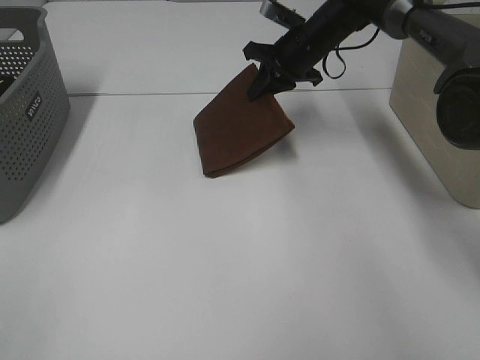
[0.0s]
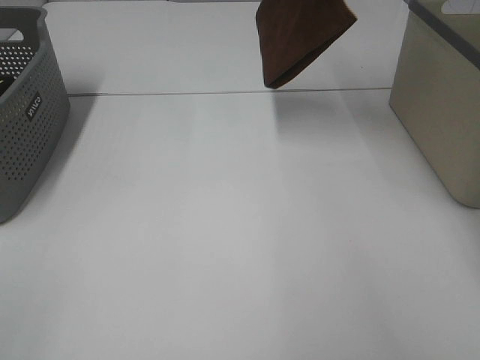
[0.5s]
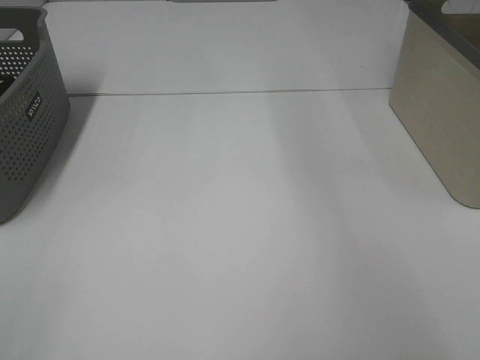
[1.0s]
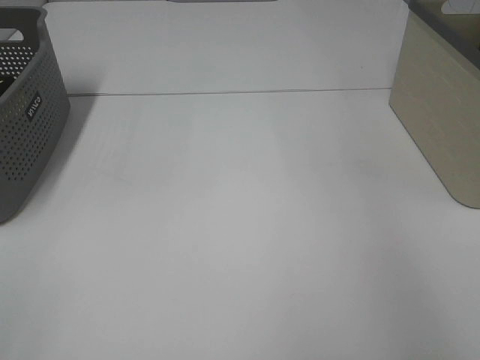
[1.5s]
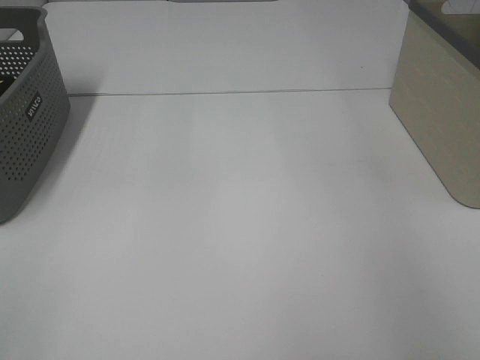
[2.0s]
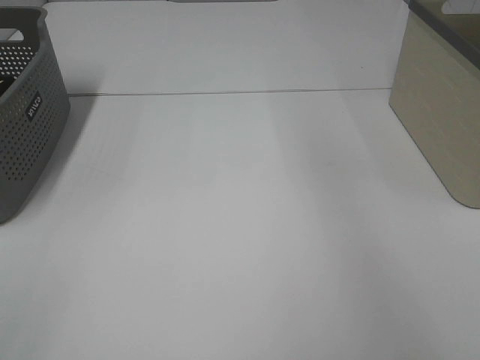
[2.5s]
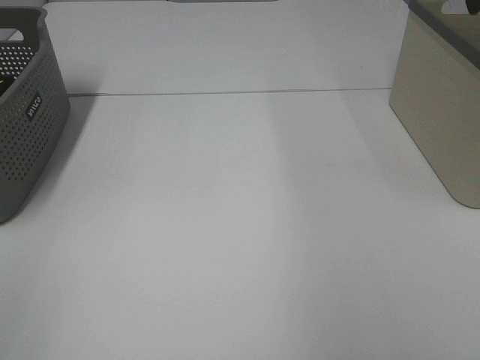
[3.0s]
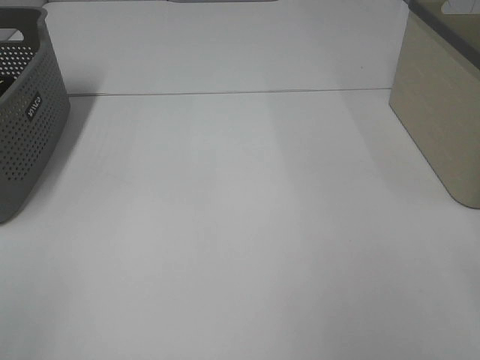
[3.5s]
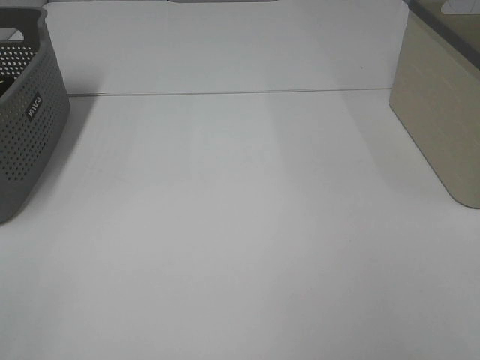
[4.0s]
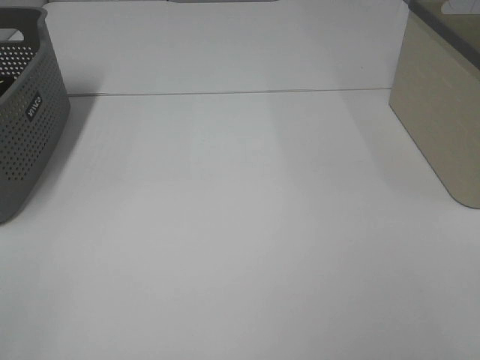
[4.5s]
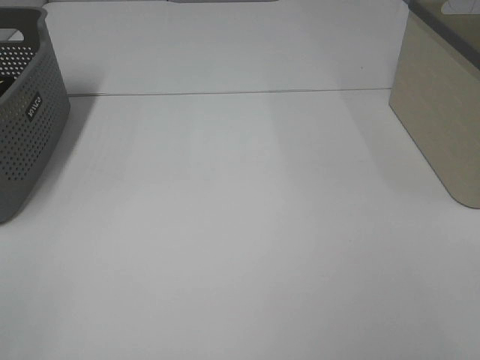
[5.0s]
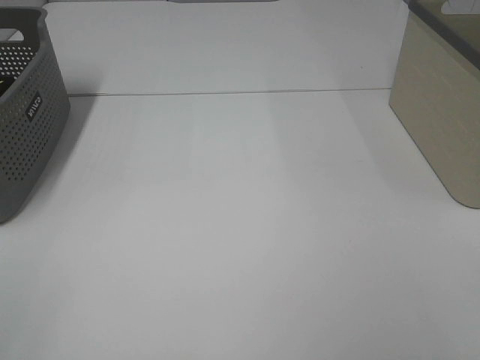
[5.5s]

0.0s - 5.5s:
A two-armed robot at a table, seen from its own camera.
Step, 0.0s - 2.0s: Right hand: place the brown towel in right basket.
0.0s - 2.0s: The right gripper shifts approximately 30 cm to the right and upward, and opens its fingers.

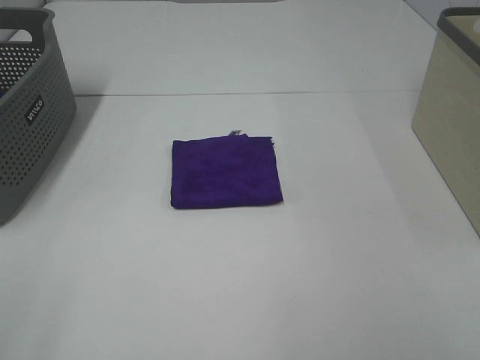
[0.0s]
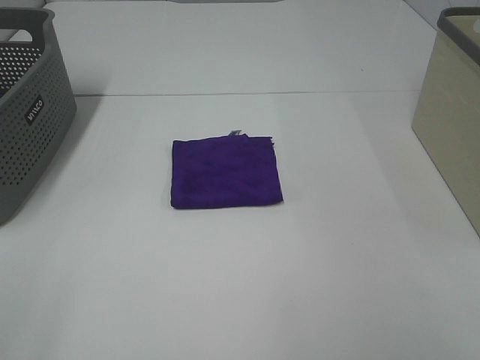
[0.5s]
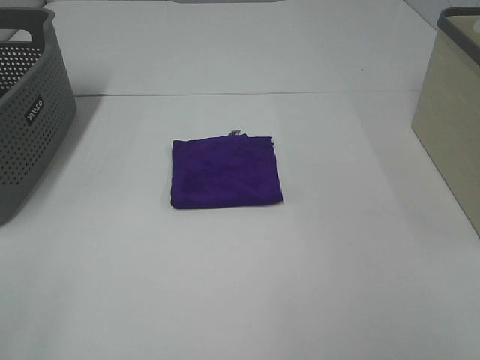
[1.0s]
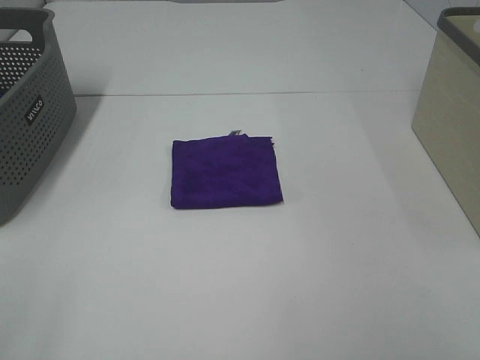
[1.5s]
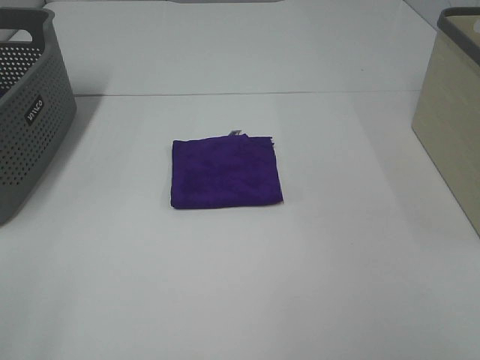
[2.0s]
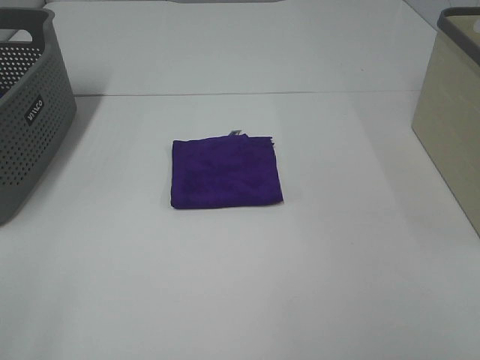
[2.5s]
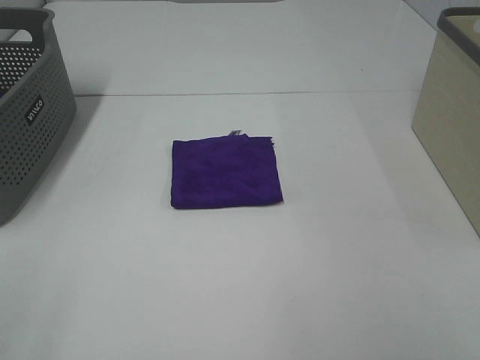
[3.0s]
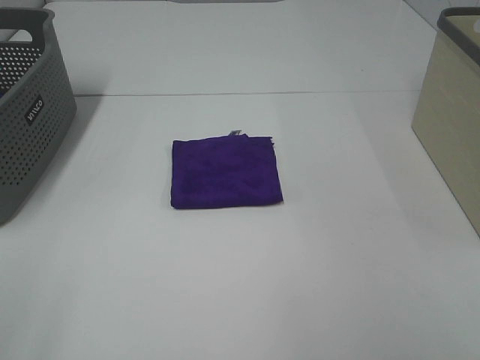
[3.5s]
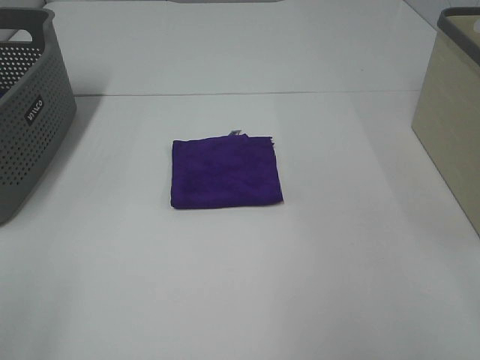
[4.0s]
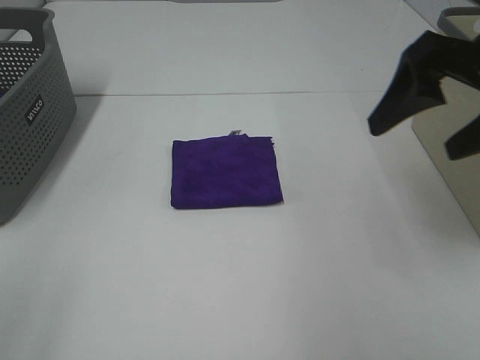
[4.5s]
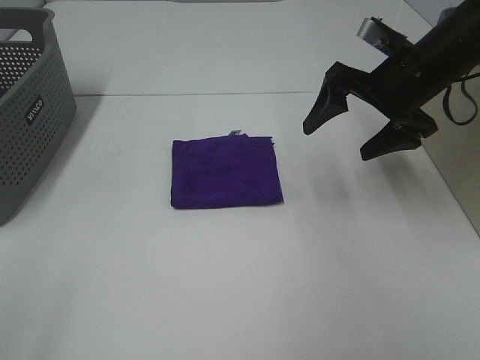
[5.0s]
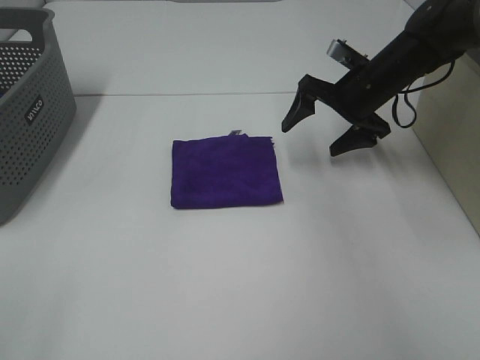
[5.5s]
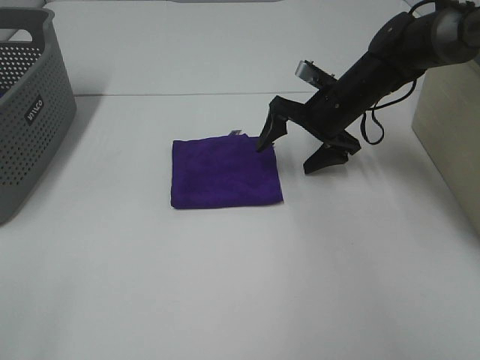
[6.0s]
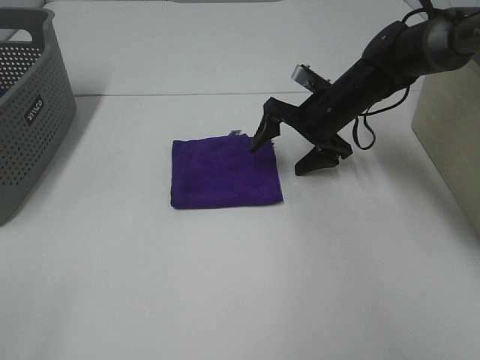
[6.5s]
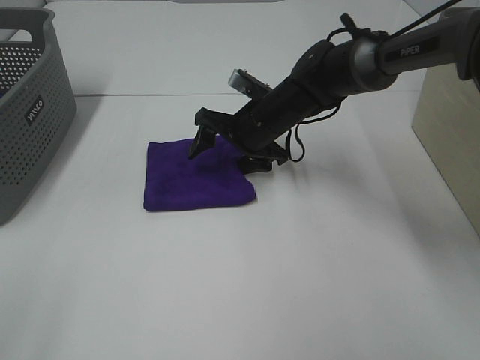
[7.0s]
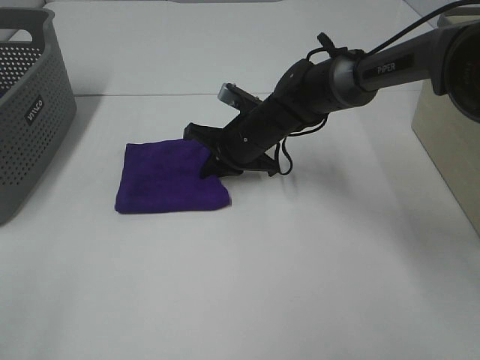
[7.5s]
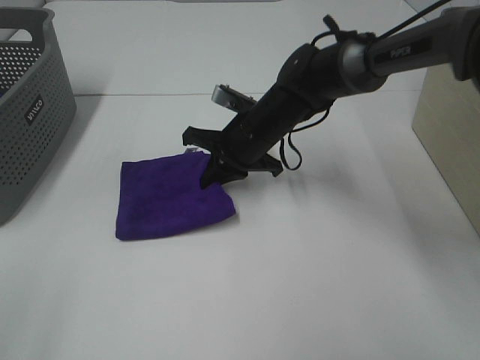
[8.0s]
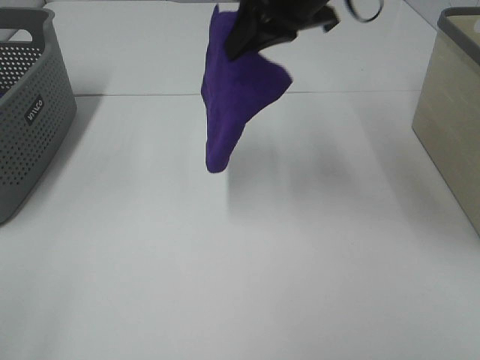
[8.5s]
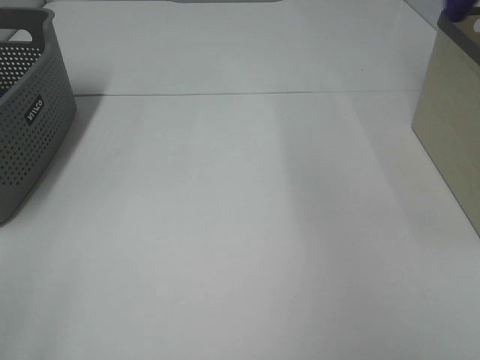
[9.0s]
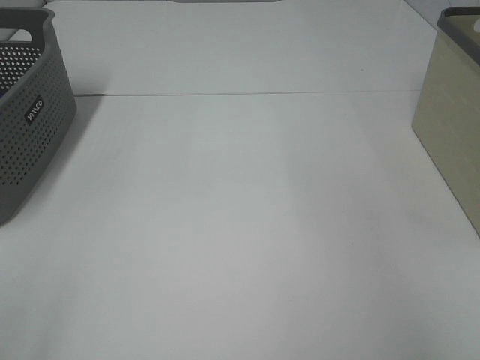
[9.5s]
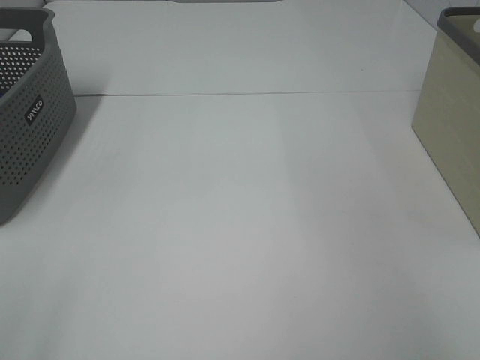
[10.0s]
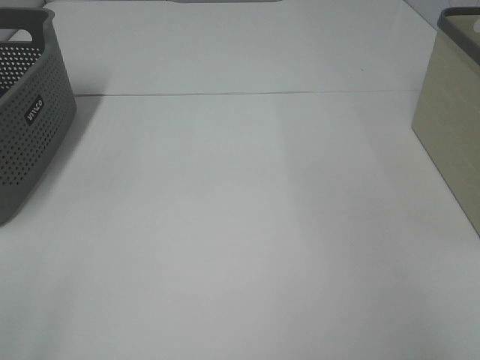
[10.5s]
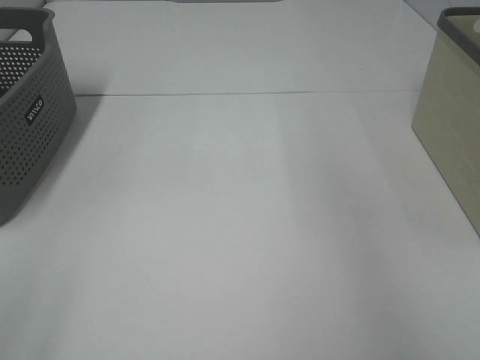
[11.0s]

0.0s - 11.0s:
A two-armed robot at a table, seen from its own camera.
Step, 0.0s - 7.5s: Right hand: grab the folded purple towel.
Step, 8.0s - 10.0s: Right hand: place the purple towel in right basket.
0.0s - 3.5s: The two grippers keep their place.
3.5s - 5.5s: The right gripper moves forward, about 40 cm.
5.5s - 7.5s: The right gripper moves to the left and downward, about 15 cm, and closes its fingers.
7.5s - 9.0s: The right gripper goes approximately 50 cm upward and to the right.

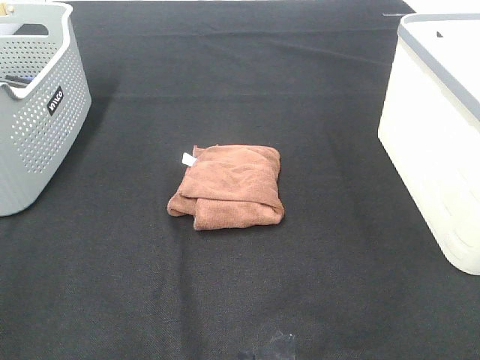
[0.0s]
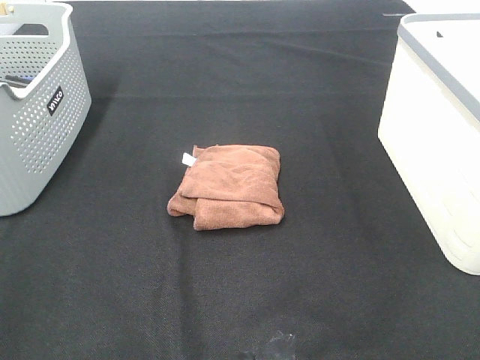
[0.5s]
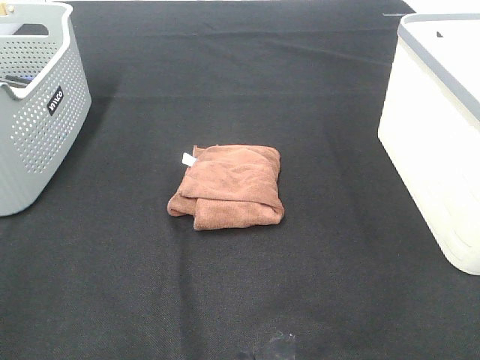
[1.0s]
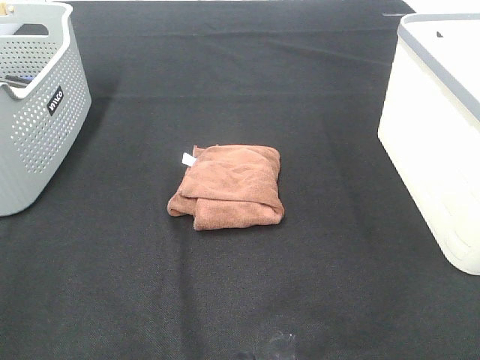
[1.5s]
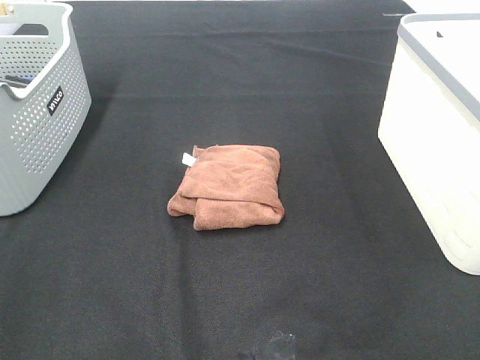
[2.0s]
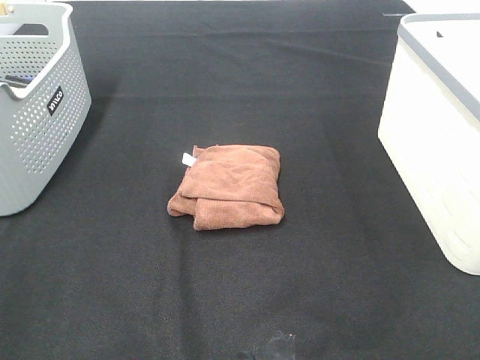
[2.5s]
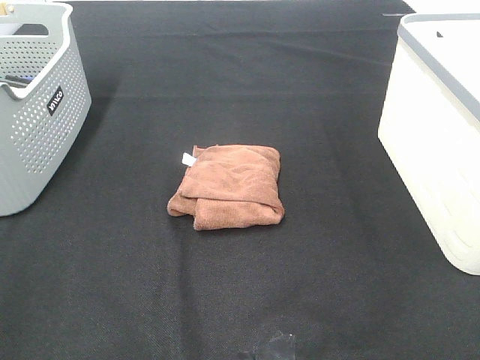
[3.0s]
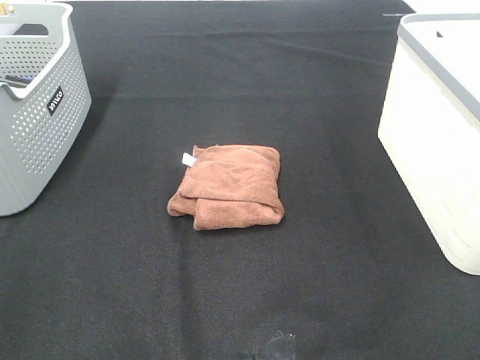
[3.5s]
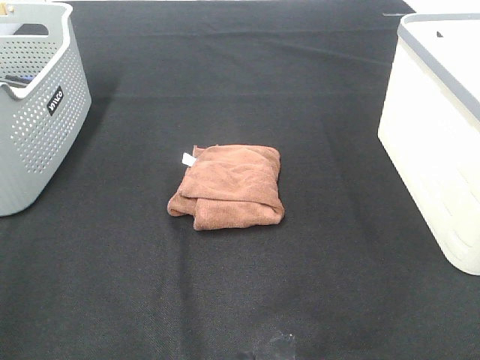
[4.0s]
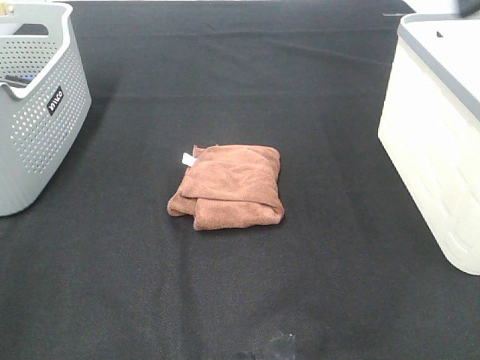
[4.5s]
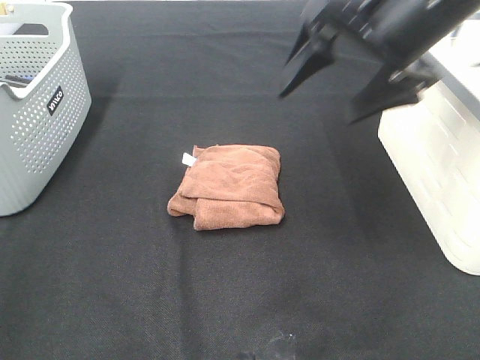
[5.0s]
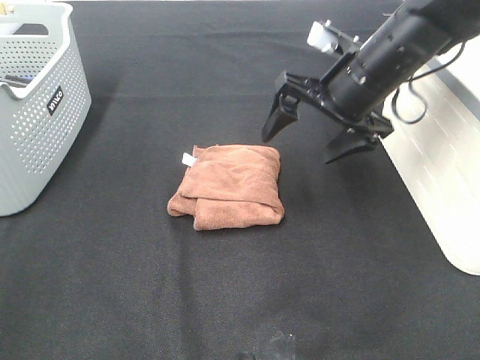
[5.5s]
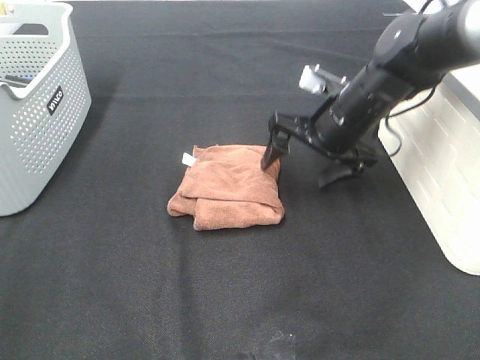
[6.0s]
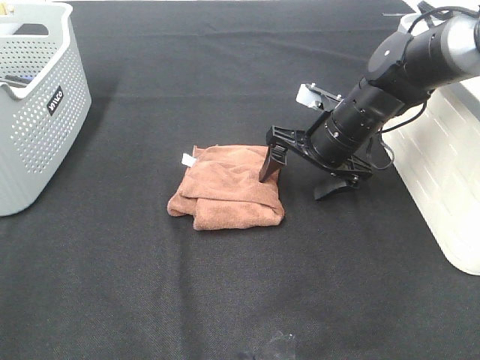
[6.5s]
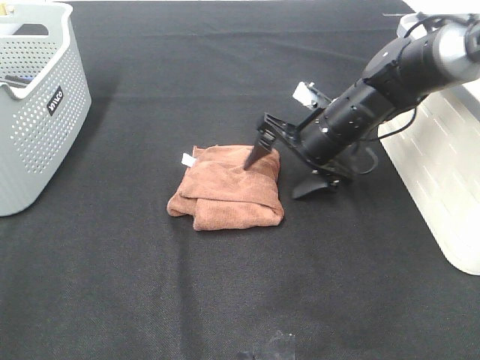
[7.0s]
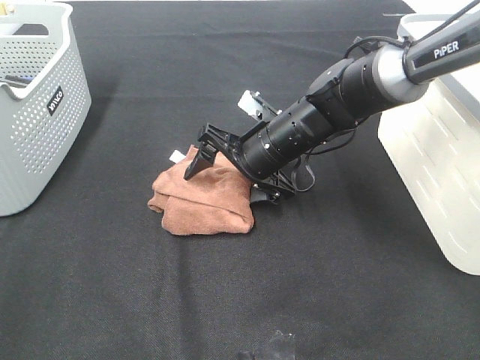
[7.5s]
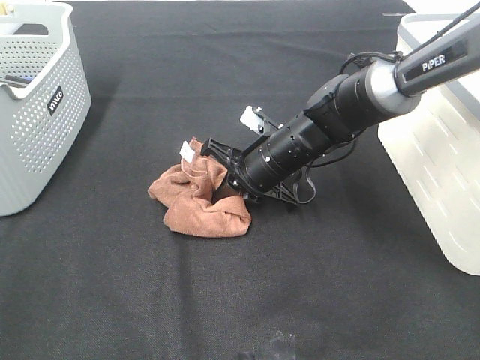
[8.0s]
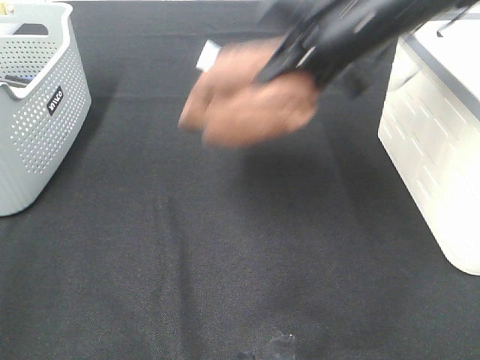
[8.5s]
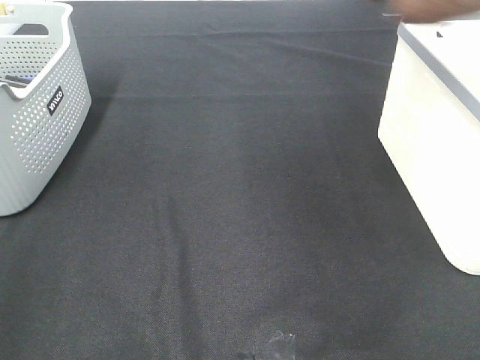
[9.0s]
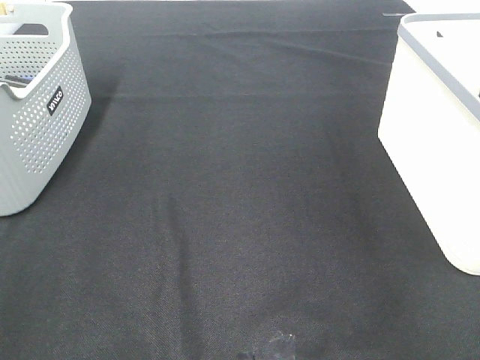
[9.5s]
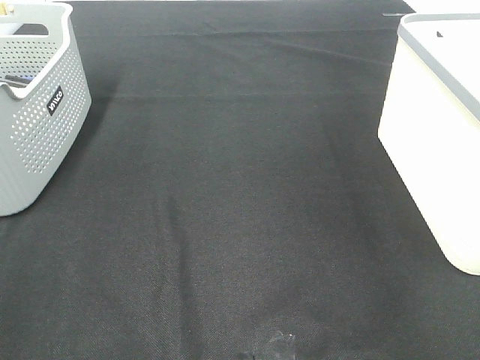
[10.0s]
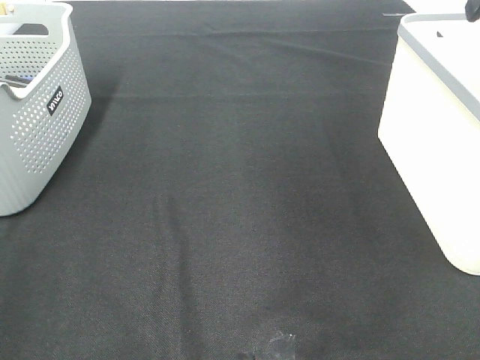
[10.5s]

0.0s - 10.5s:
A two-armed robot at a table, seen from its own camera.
Step, 0.0s - 7.5s: Right hand: grab the folded brown towel.
Step, 8.0s - 9.5s: Right hand: place the brown towel in right basket.
0.0s - 2.0s: The two grippers keep their place.
4.0s - 6.5s: The right gripper is displaced downward, forward and to the left by about 40 cm.
6.5s - 8.5s: The right gripper shifts some 20 cm upward, and closes its fingers.
8.5s - 10.5s: The right gripper travels to the right and upward by about 15 cm, and opens.
